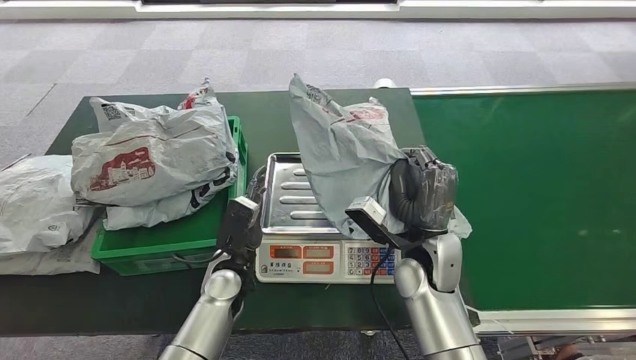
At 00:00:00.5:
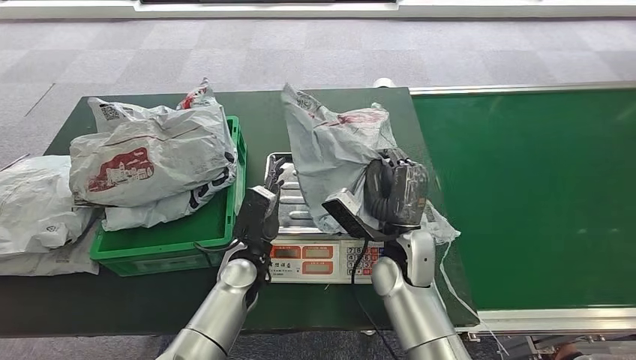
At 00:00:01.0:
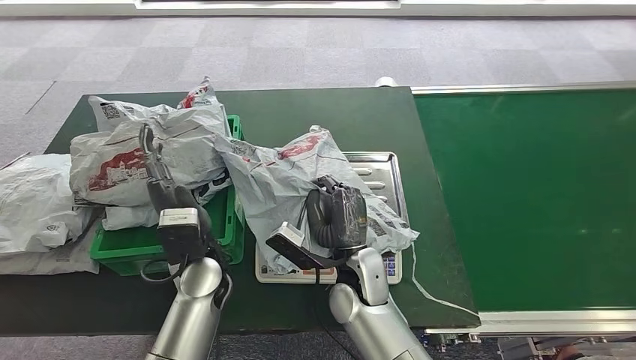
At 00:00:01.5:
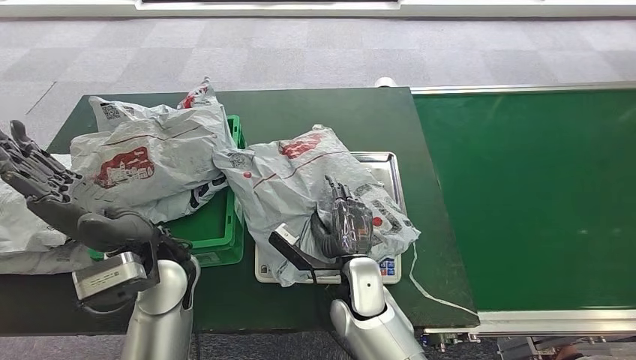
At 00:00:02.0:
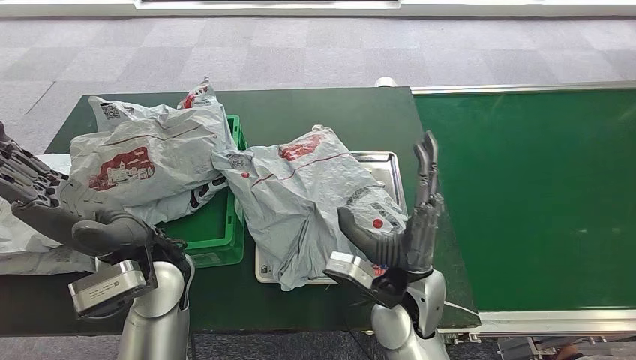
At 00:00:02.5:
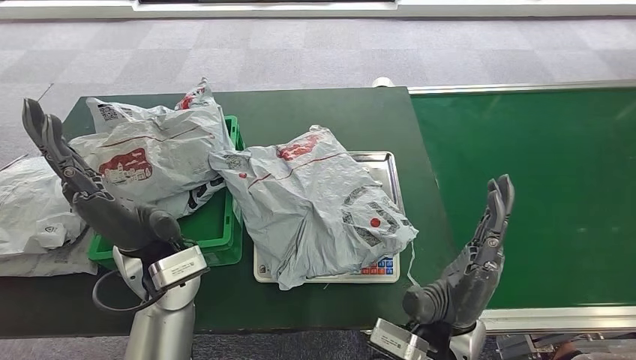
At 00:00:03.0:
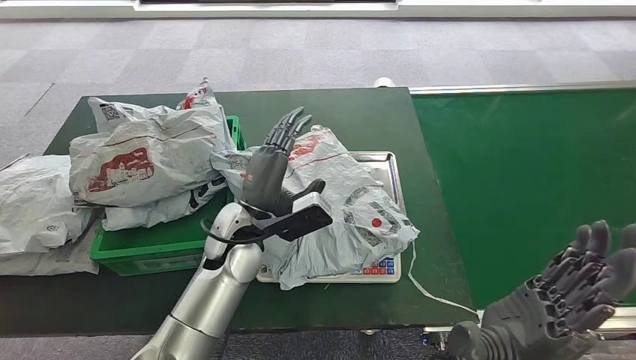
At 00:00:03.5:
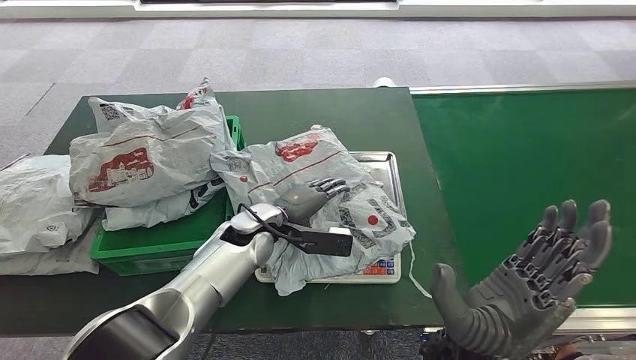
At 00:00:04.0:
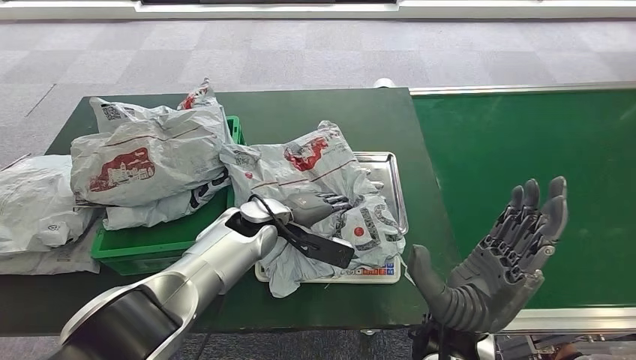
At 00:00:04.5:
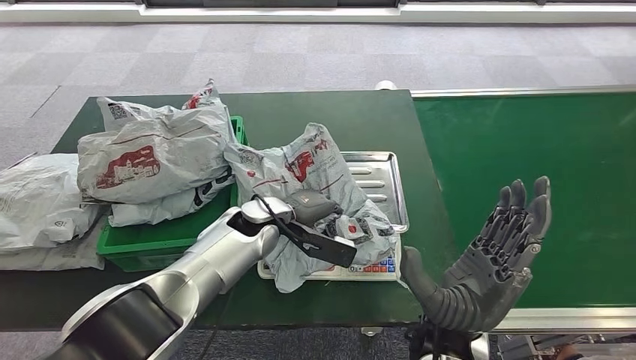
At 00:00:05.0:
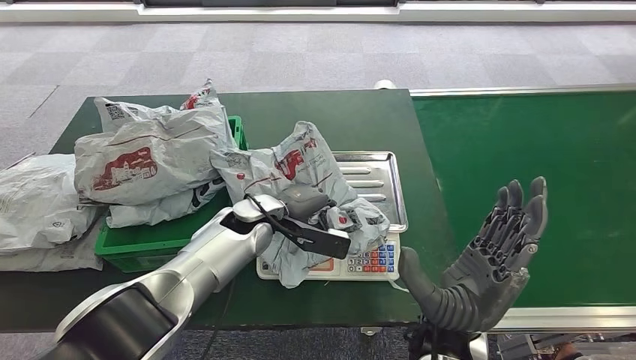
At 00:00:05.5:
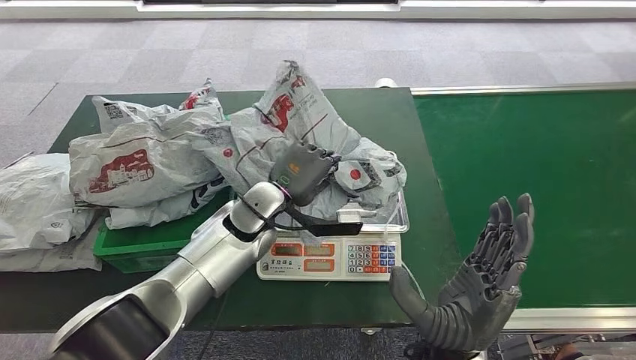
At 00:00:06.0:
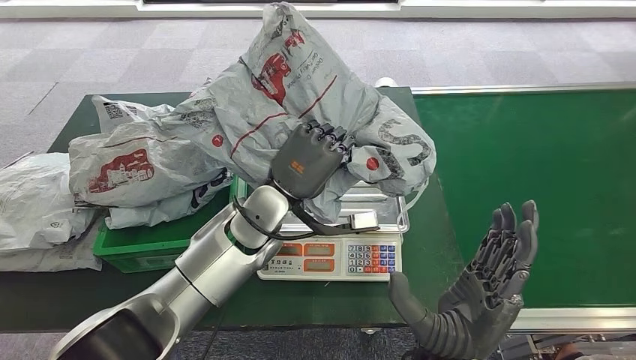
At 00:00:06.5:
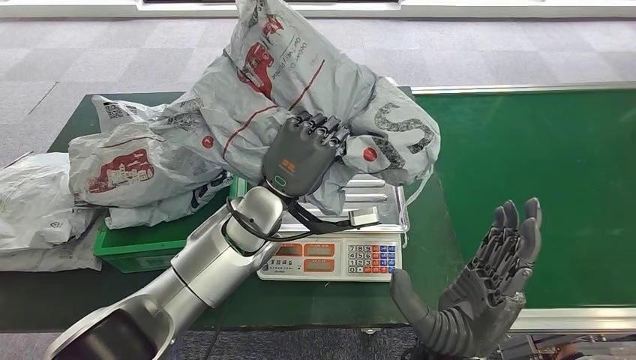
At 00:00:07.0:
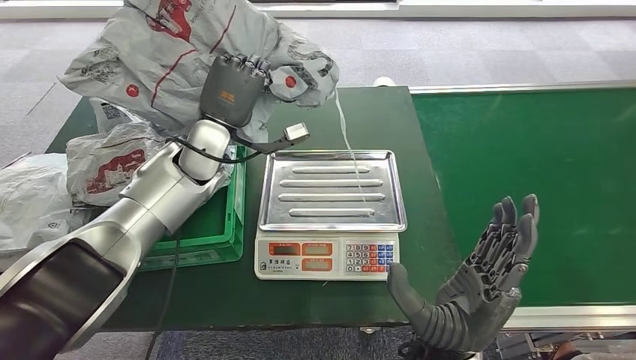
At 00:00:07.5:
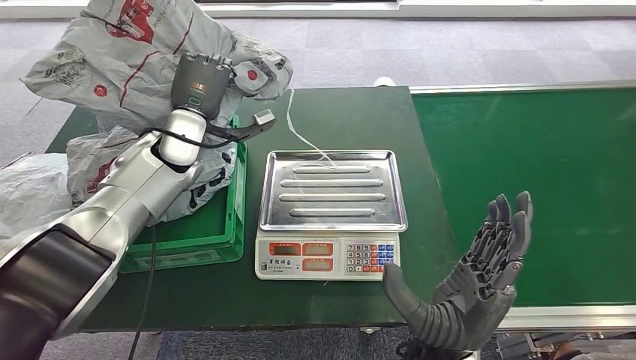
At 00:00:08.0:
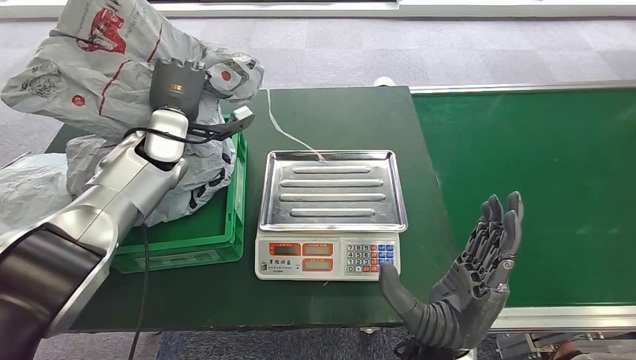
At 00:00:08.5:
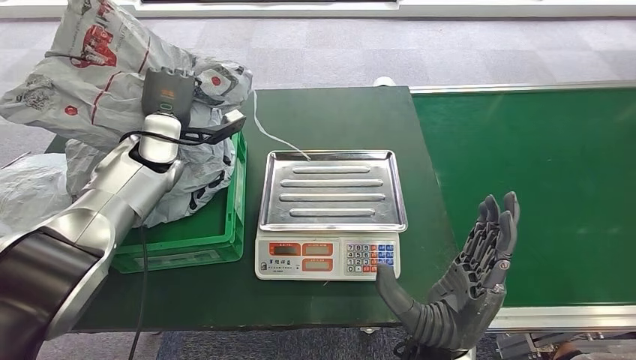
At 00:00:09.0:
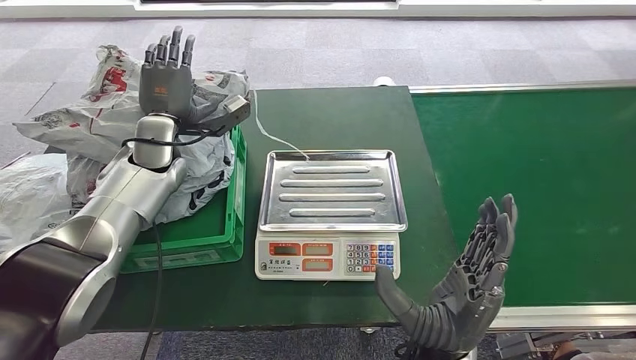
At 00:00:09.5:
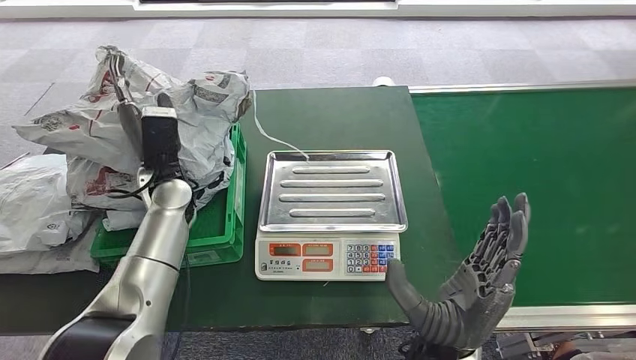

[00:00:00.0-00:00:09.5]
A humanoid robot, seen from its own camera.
Step, 00:00:00.0 to 00:00:03.5: Place the parcel onto the inbound machine.
Step, 00:00:04.0 to 00:00:06.0: Pick up the parcel from the inbound machine.
Step, 00:00:06.5 to 00:00:09.5: Place the parcel into the delivery box.
